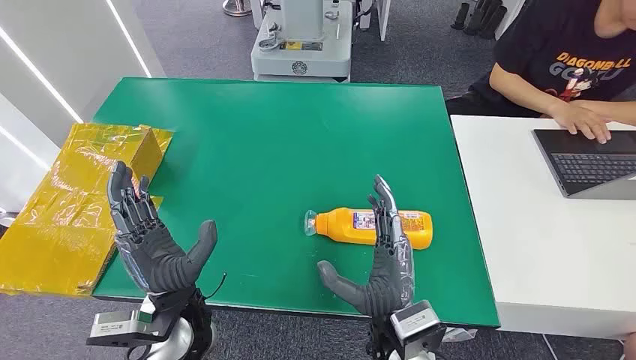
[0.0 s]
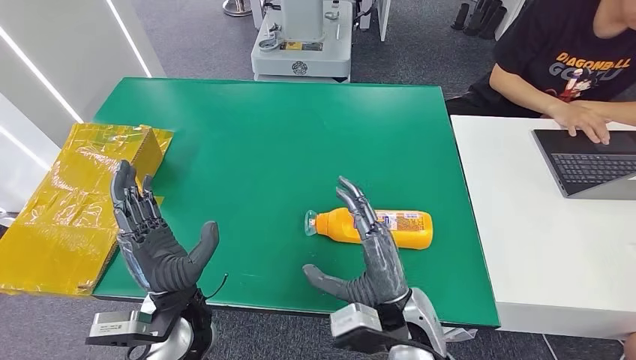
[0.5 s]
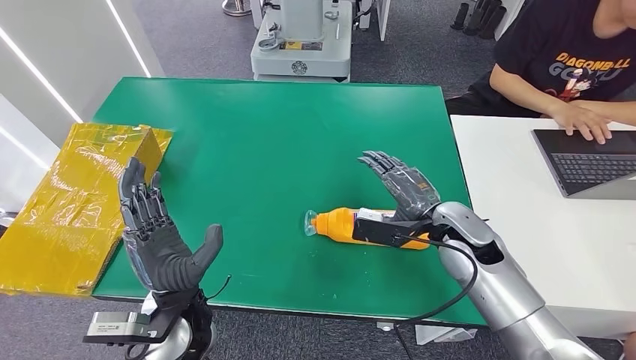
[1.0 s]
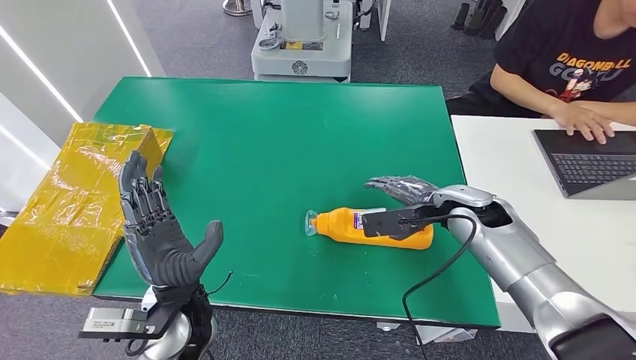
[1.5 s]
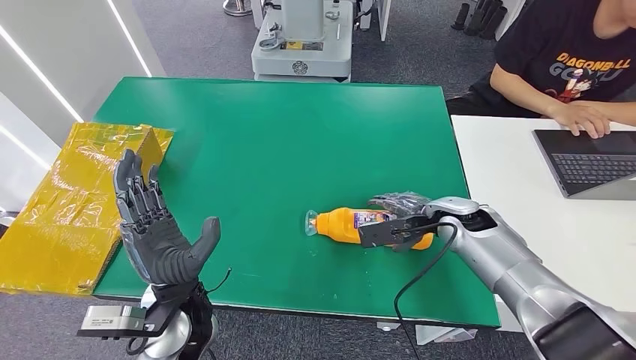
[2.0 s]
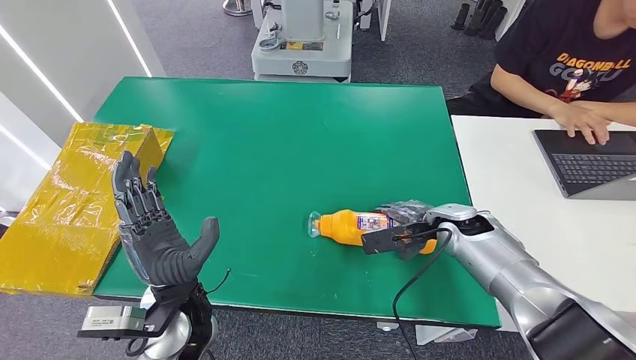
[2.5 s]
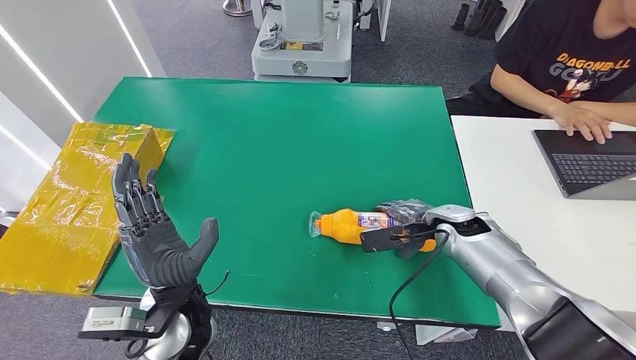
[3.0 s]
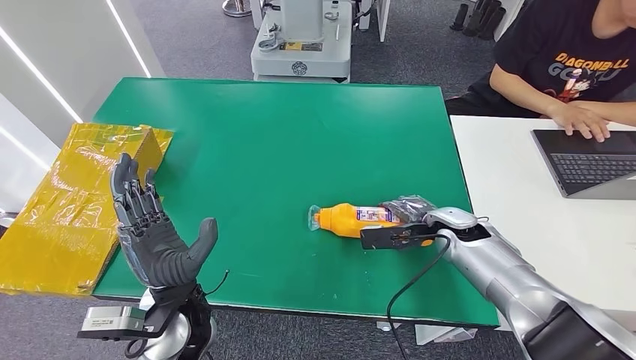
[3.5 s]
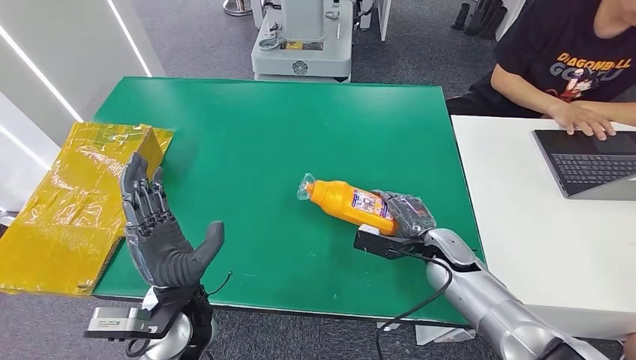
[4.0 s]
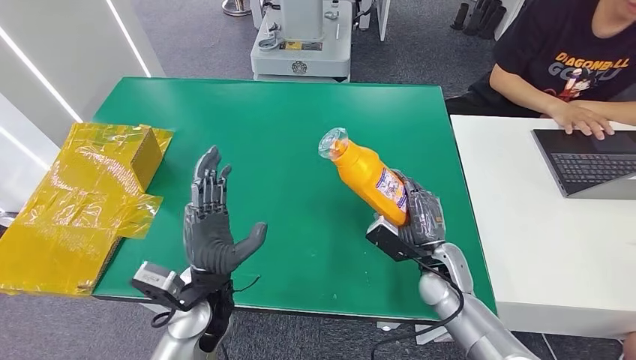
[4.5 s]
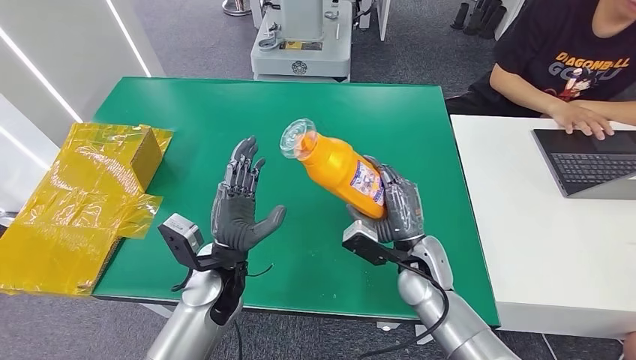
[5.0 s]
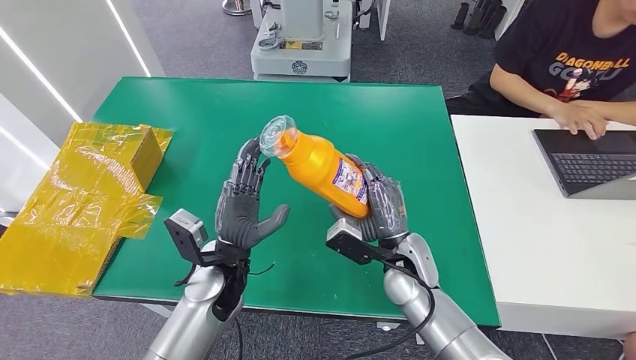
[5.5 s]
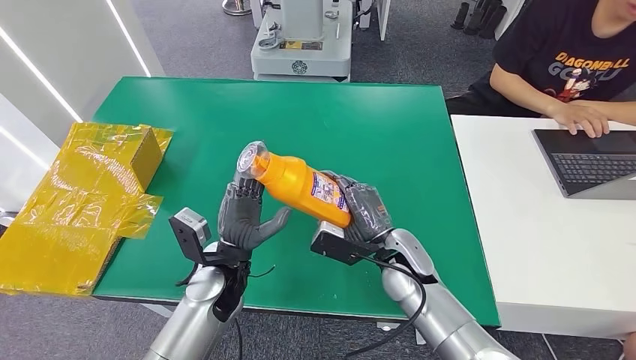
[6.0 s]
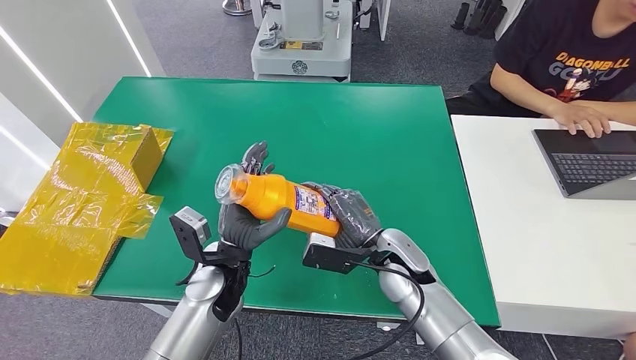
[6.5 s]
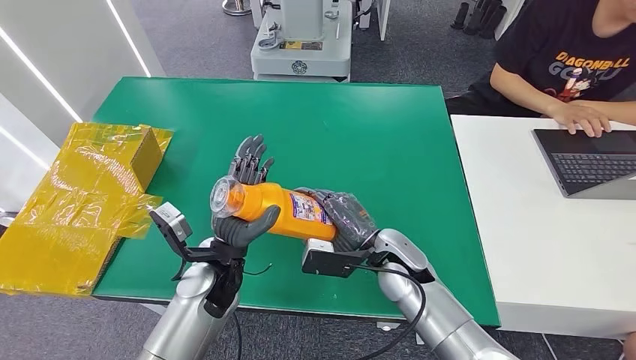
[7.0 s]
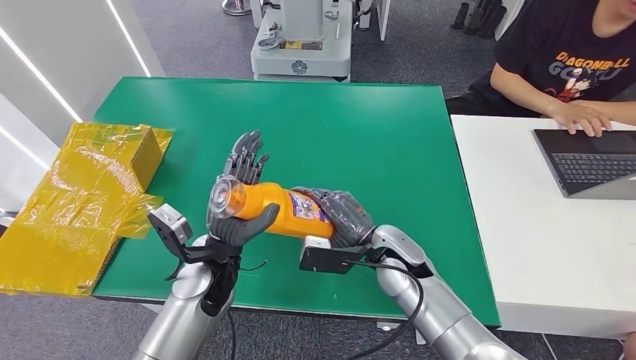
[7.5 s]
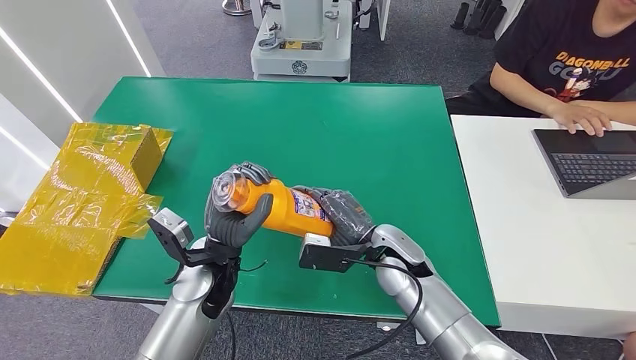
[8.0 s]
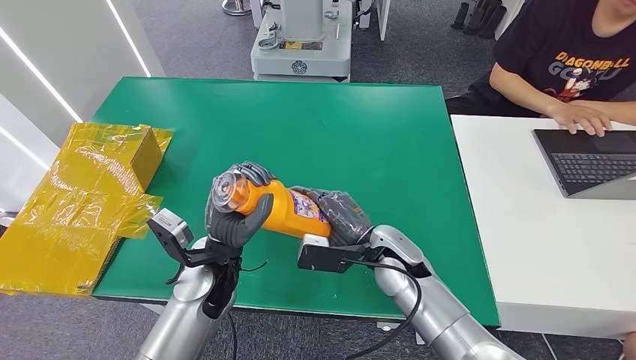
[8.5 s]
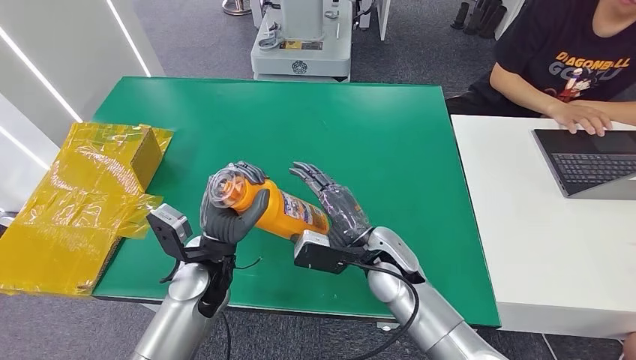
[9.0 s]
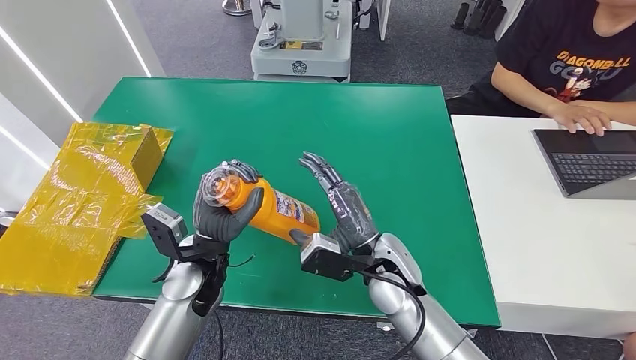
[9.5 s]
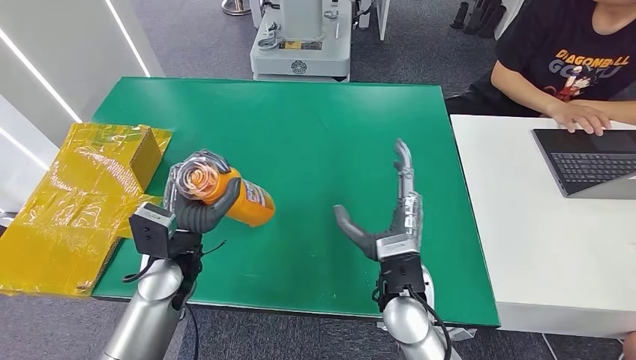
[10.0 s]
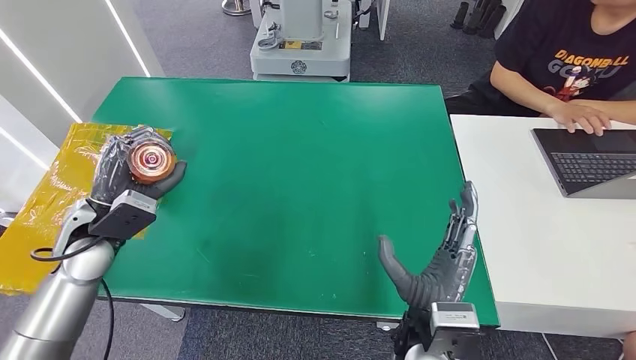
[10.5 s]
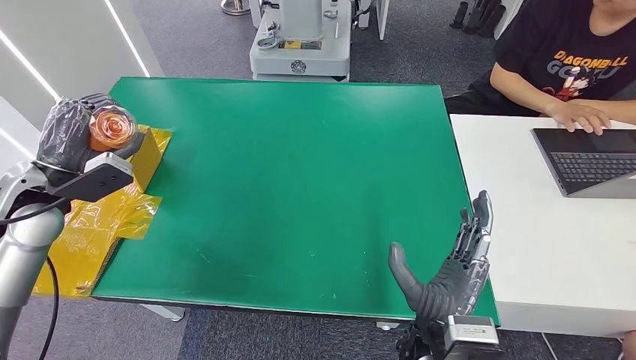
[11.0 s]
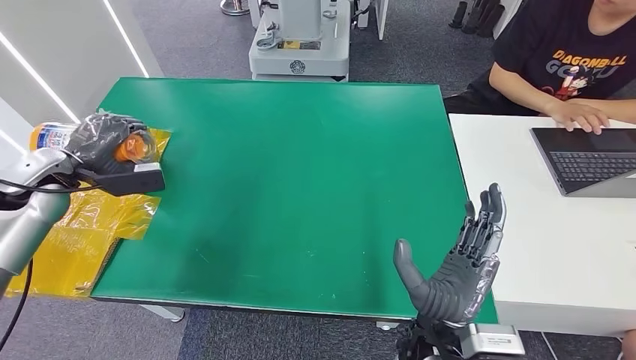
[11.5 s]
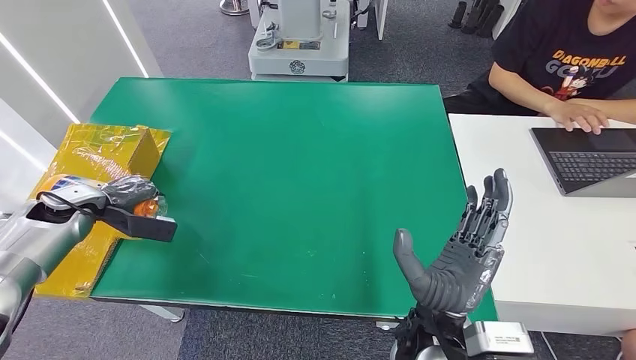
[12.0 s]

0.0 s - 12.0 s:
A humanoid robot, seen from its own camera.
Step, 0.0 s - 5.0 s: Pick up the bottle from the table.
2.0 s - 4.0 s: The right hand heads downward, covering some 5 cm.
4.0 s - 6.0 s: The left hand shifts roughly 5 cm forward. Meanwhile the right hand heads to the left, covering some 10 cm.
6.0 s - 8.0 s: There are only small adjustments of the hands.
8.0 s - 10.0 s: The right hand goes approximately 10 cm backward, while the left hand travels to the left by roughly 5 cm.

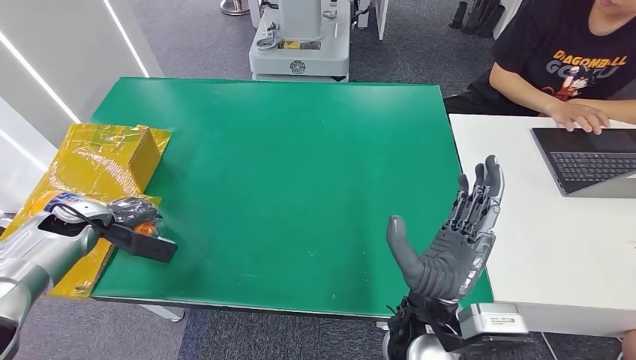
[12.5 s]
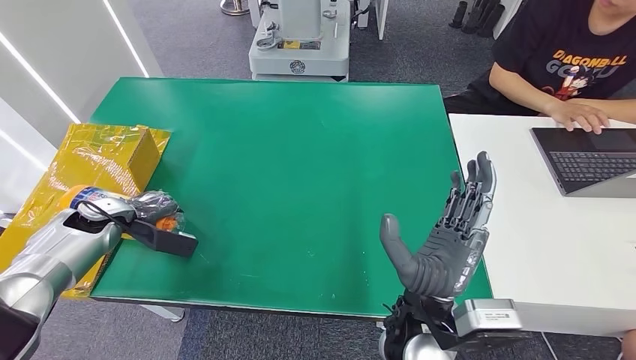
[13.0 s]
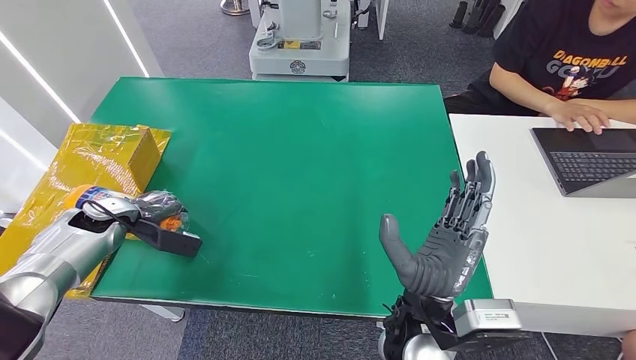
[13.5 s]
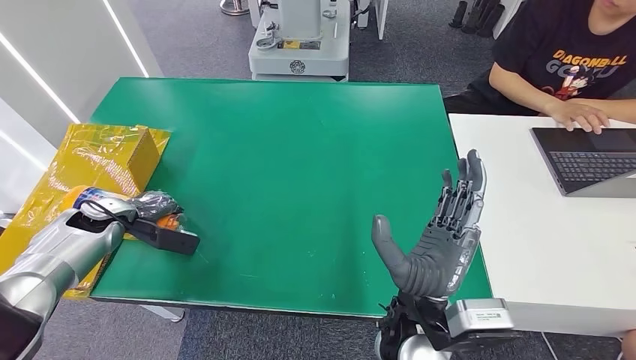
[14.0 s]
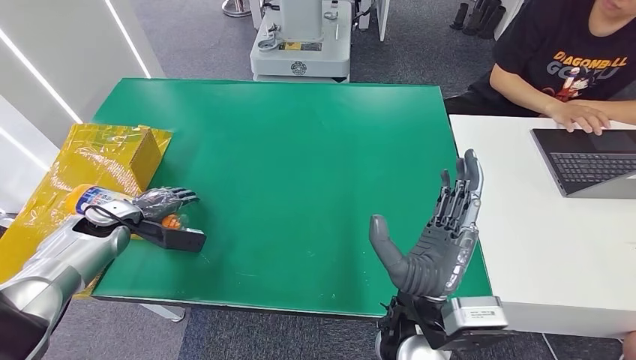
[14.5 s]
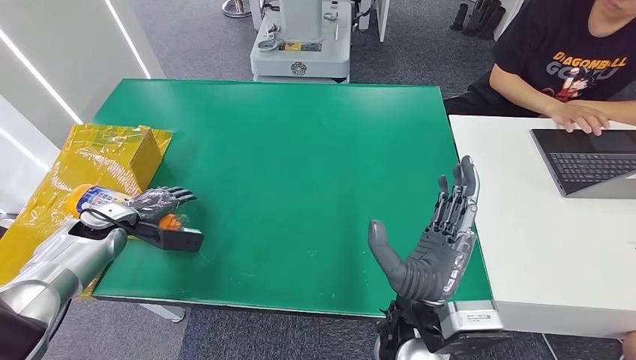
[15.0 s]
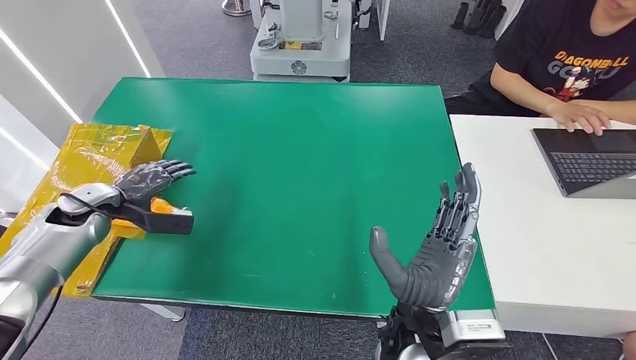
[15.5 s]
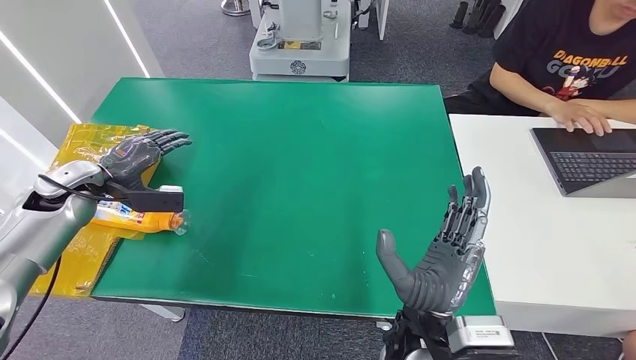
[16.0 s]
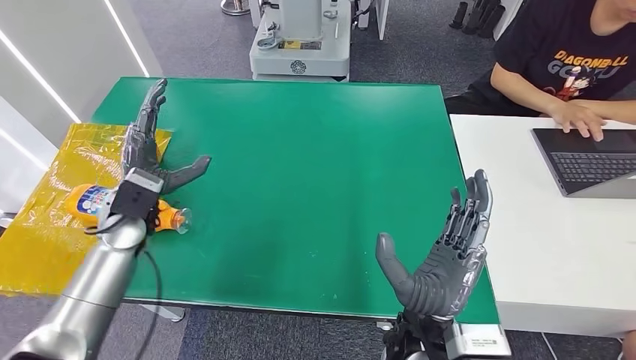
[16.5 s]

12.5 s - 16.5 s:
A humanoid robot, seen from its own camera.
Step, 12.5 s - 16.5 s: Turn the bottle to the front side.
12.5 s - 14.5 s: The left hand shifts some 5 cm to the right.
14.5 s - 16.5 s: The left hand shifts roughly 15 cm to the right and upward.
